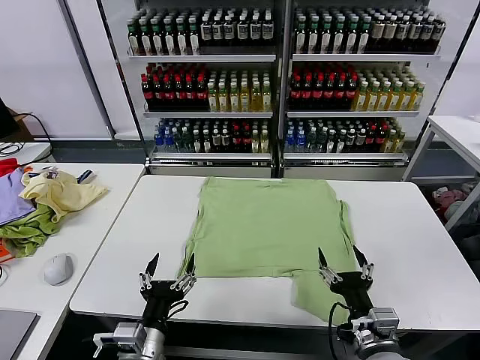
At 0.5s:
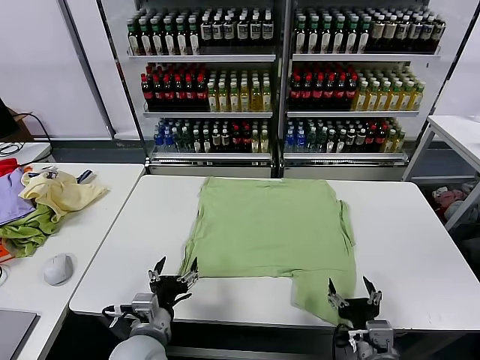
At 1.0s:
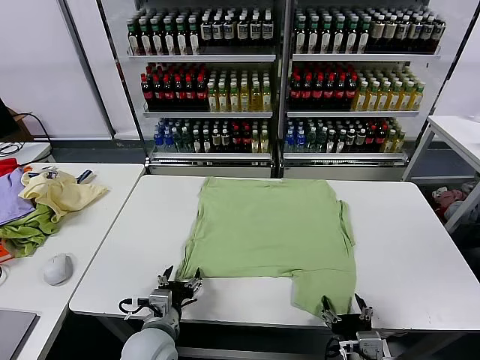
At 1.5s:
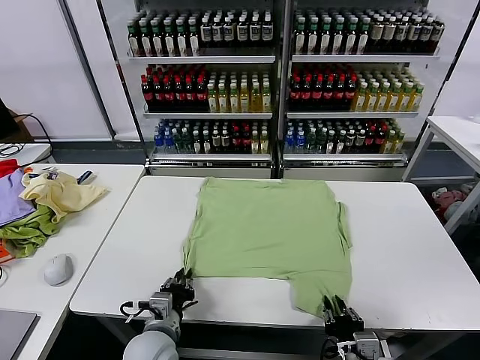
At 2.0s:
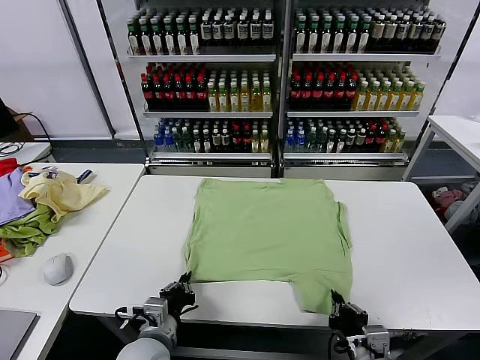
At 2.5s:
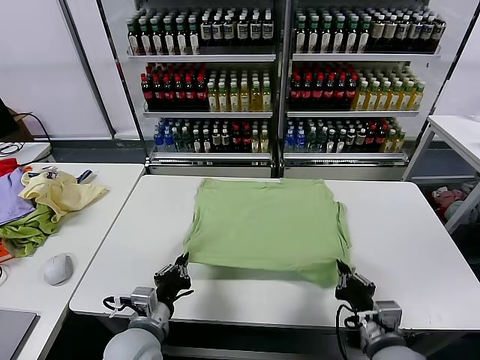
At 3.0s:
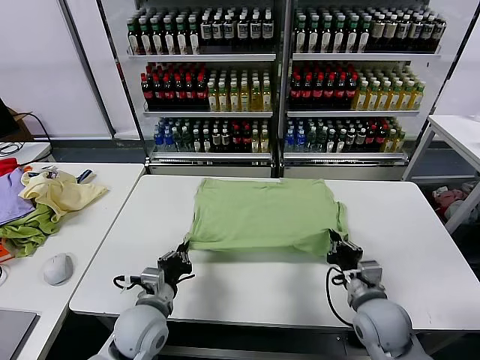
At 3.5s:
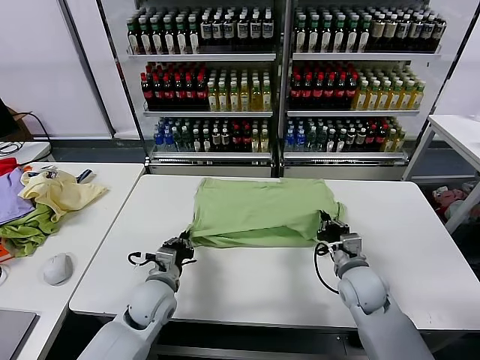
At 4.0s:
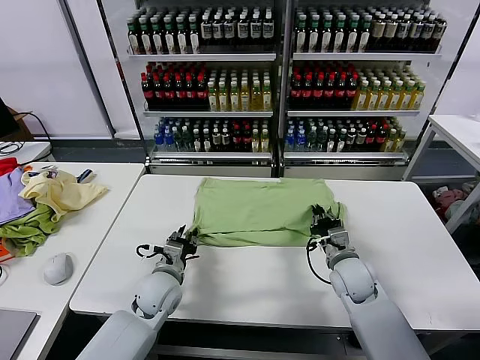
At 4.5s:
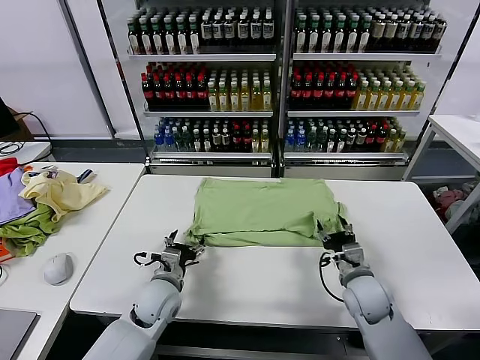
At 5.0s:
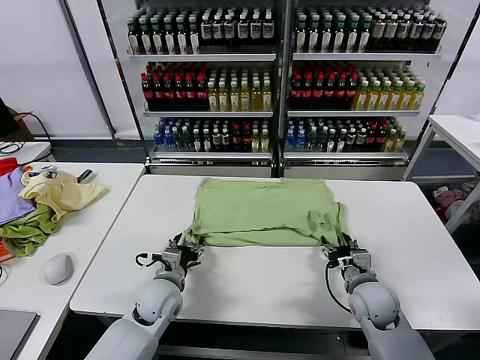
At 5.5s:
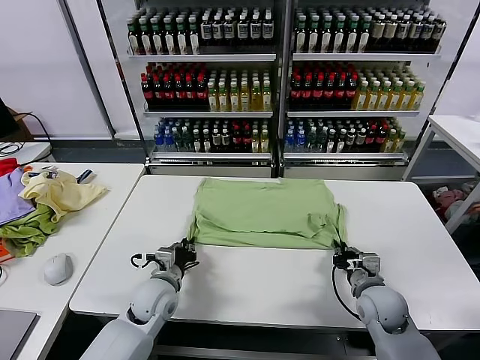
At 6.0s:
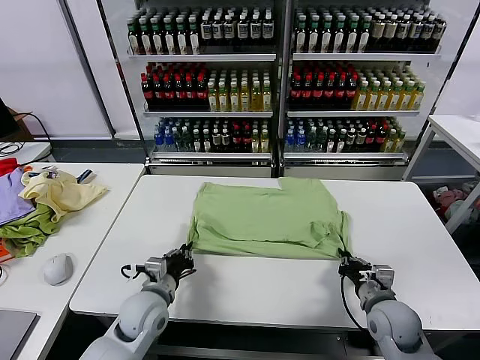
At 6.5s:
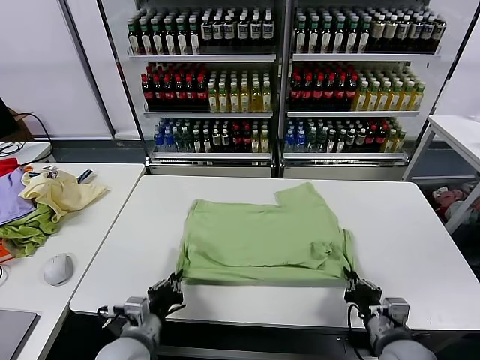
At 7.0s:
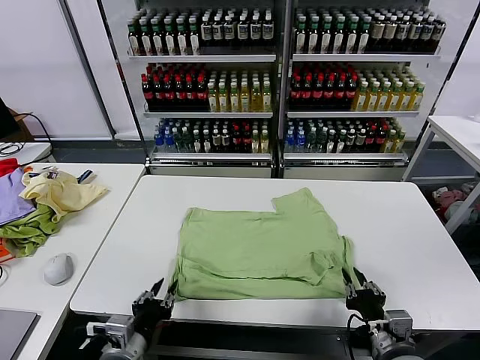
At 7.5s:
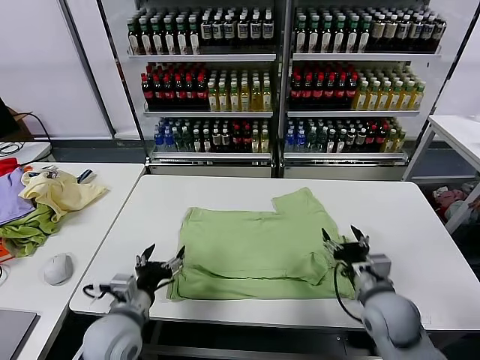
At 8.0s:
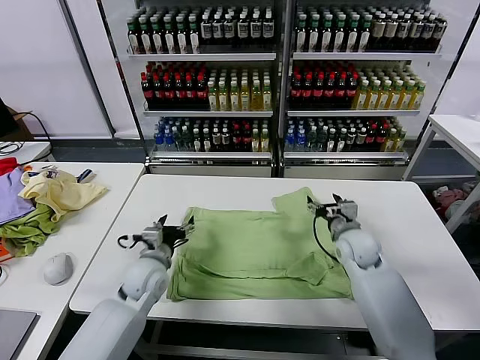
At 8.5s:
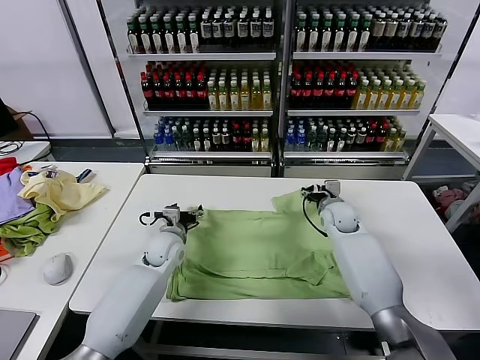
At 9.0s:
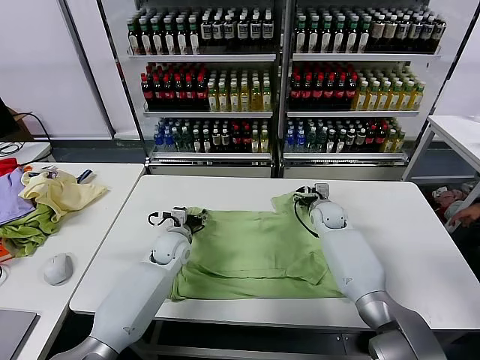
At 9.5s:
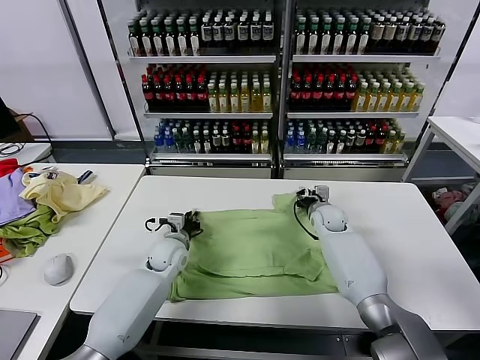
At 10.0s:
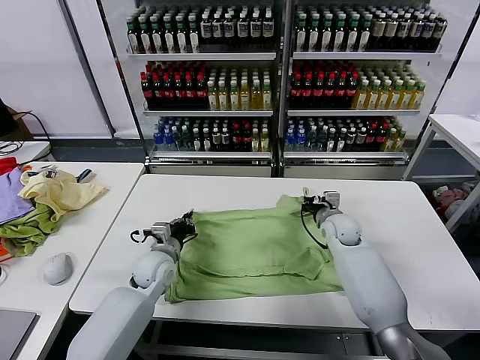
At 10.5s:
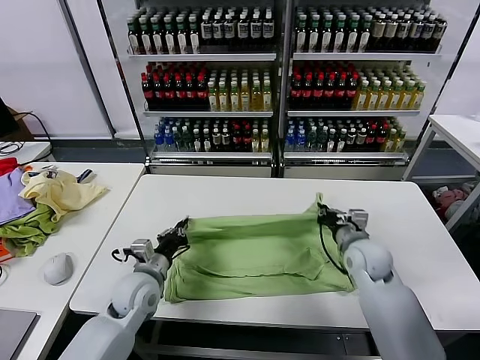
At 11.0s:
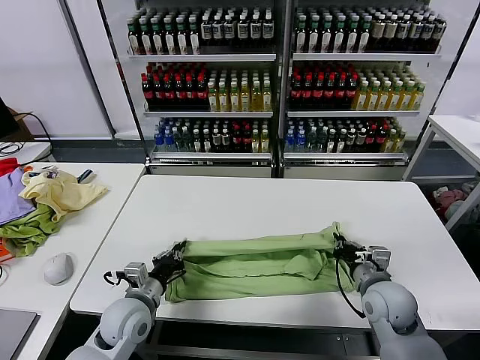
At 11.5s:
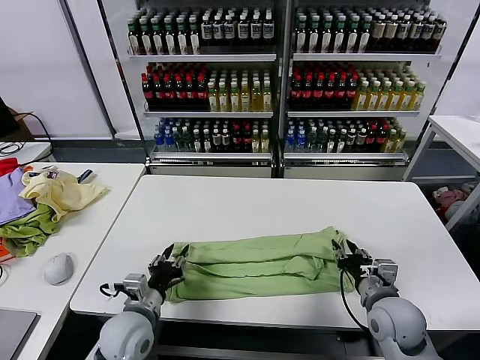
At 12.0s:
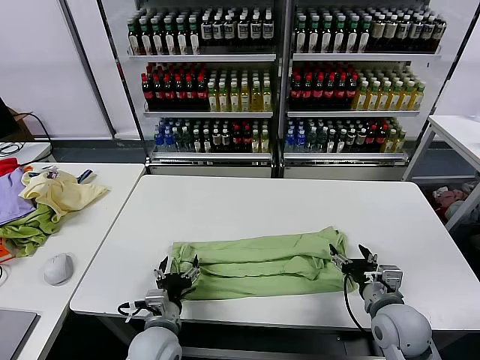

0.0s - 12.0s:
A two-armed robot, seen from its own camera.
Task of the whole recording: fold and organize the clothes.
Step, 0.0s - 1.5s: use both grippers simultaneously to clamp the lower edge of the clothing fabric.
Step, 2.0s - 4.0s: use both grippers to drag the lower edge of the fabric forward and fold it over the upper edge.
Step, 4.5s - 7.0s: Drag the clothes downward with both gripper.
Step, 7.5s - 9.5s: use both grippers simultaneously to clamp the upper edge of the clothing fabric.
Step, 10.0s - 11.0s: use both grippers to drag the upper edge of the fabric backward and fold it over the lower edge.
2.0s - 4.0s: The left gripper shifts about 15 cm forward, and opens up. The right gripper is displaced forward by roughly 20 cm.
4.0s - 6.0s: The left gripper moves roughly 5 cm, and closes. The right gripper heads backward and to the right, covering approximately 10 cm, and opens, then closes once more.
6.0s - 8.0s: The left gripper travels backward and back again, roughly 15 cm each way, and opens up; the right gripper moves forward, roughly 20 cm, and opens up.
8.0s - 10.0s: The left gripper closes up. The right gripper goes forward and returns, approximately 10 cm each way, and closes up.
10.0s - 12.0s: Both grippers travel together backward, roughly 20 cm. The right gripper opens; the left gripper opens up.

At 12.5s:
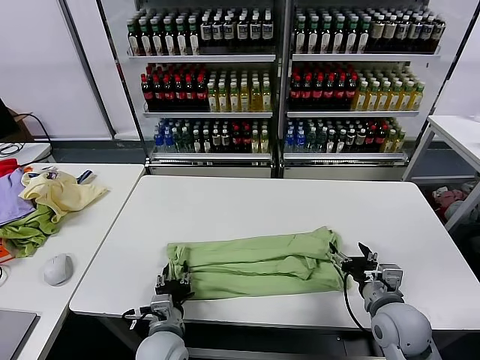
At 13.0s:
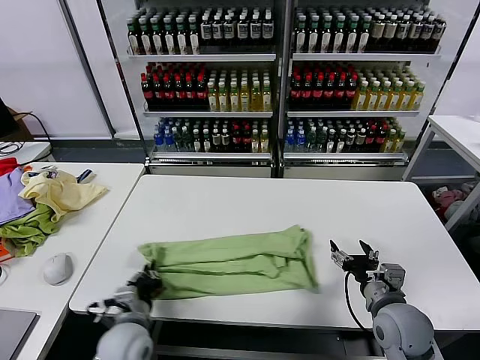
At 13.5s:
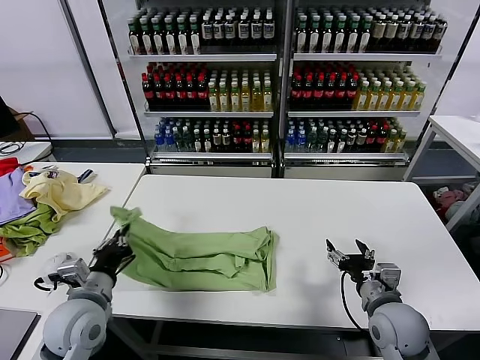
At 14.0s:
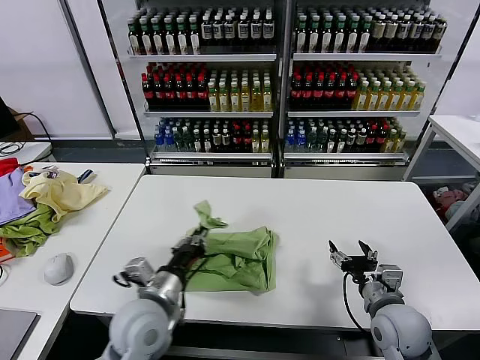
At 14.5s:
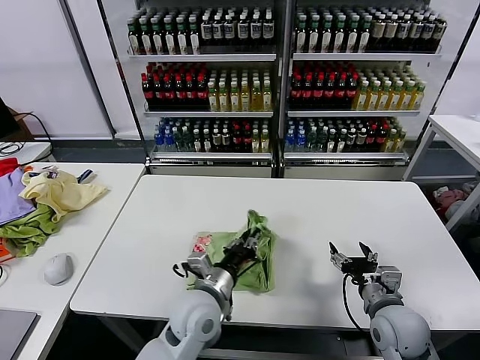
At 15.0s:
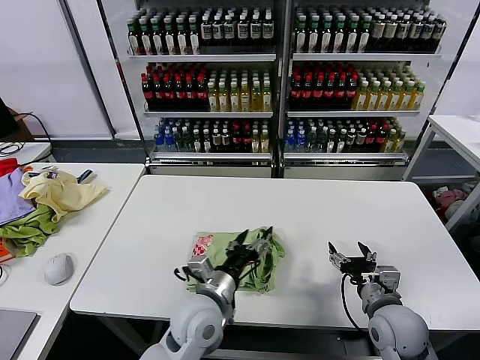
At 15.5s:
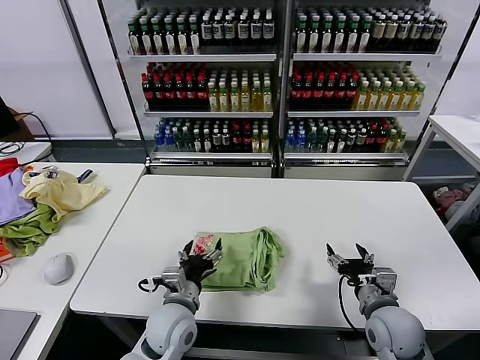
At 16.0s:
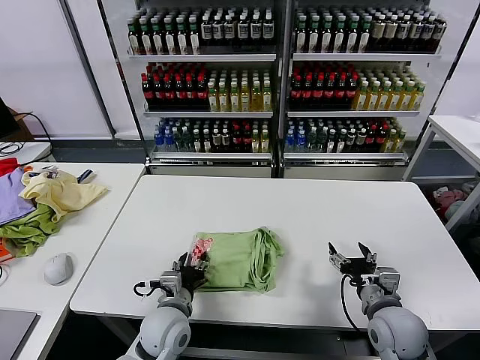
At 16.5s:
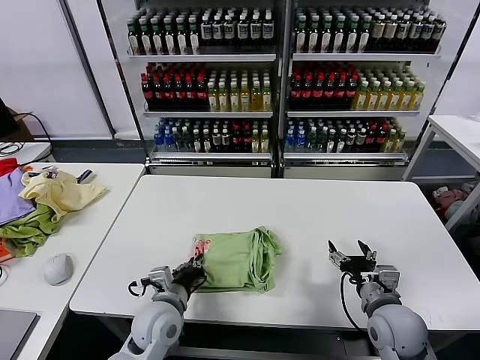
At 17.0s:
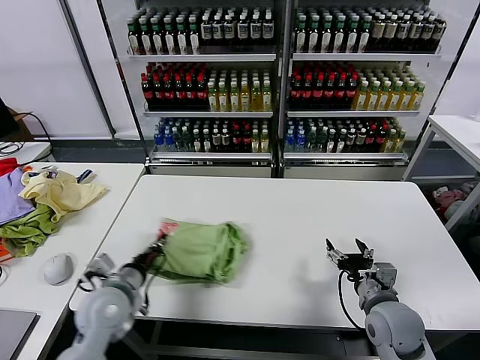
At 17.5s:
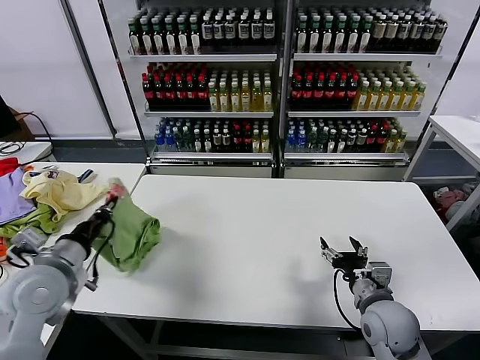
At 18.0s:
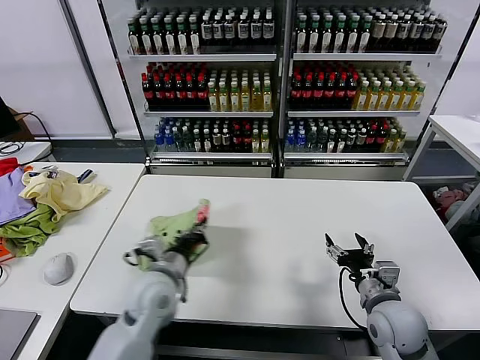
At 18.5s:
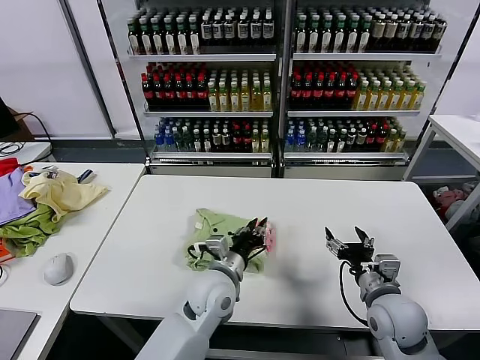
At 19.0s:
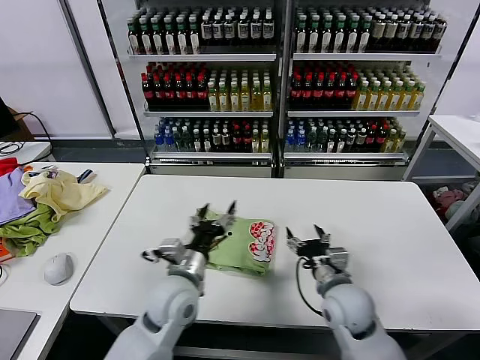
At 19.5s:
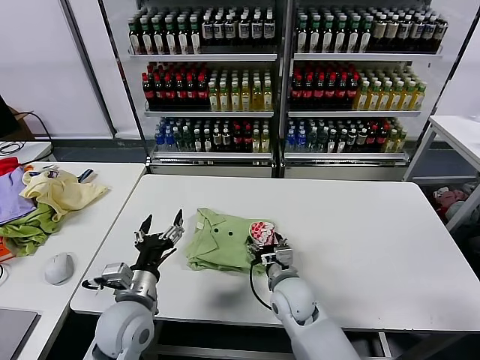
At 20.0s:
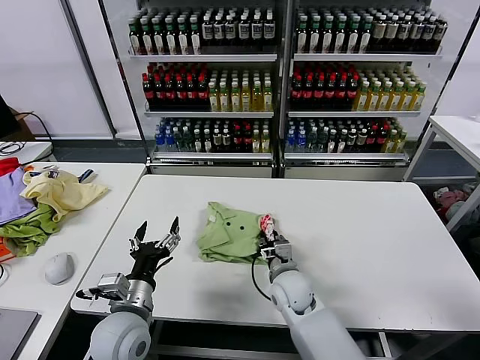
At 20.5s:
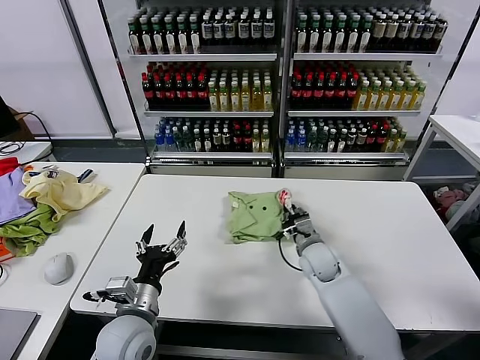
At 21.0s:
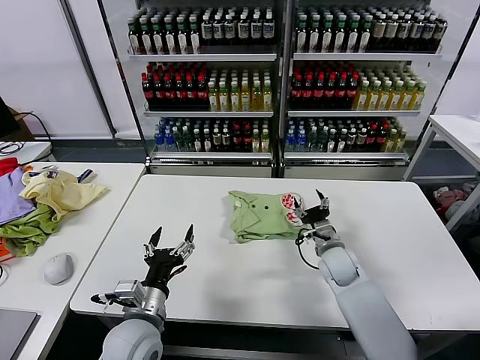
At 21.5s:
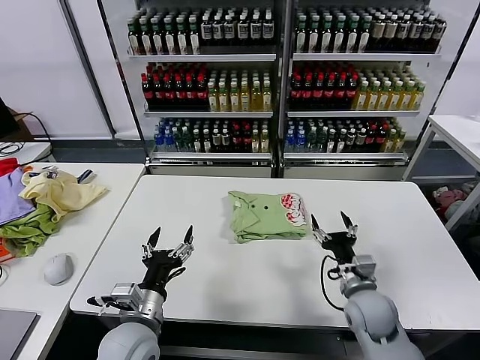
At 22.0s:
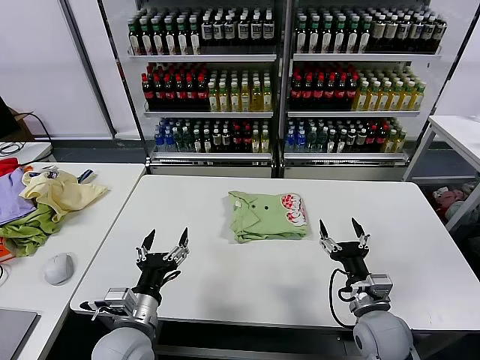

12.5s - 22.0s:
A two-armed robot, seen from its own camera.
Task of the whole recording: fold and organize the clothes.
Step, 13.0s - 14.5s: use the left gripper to drag the left edge of the fabric to the left and folds it over the right edge.
Step, 15.0s - 18.5s: Flip the folded clothes over with left gripper.
Step, 19.0s - 20.5s: Drag the clothes to the center of the table.
12.5s - 14.5s: The left gripper goes approximately 10 cm upward, and reaches roughly 15 cm to the left, then returns.
14.5s - 16.5s: The left gripper is displaced to the left and downward by approximately 10 cm, and opens and closes again.
16.5s - 18.0s: The left gripper is displaced upward by some 5 cm, and travels to the left and back again, roughly 20 cm each way.
18.0s - 20.0s: The right gripper moves to the left and forward, about 20 cm, and closes up. The left gripper is displaced backward by some 5 cm, travels to the right and back again, approximately 15 cm each way, and opens.
20.0s - 22.0s: The right gripper moves to the right and backward, about 20 cm, and opens its fingers.

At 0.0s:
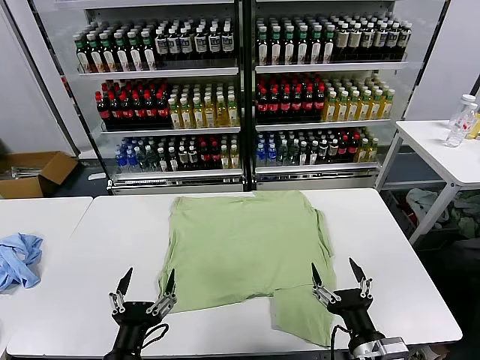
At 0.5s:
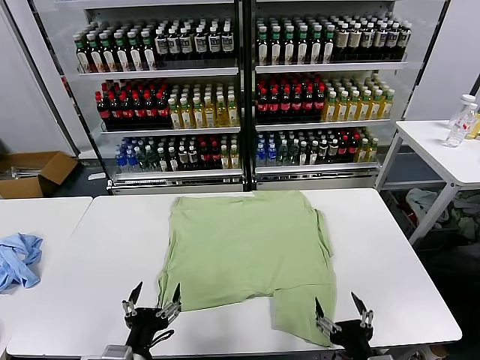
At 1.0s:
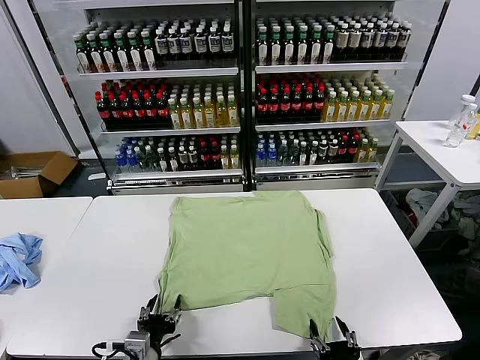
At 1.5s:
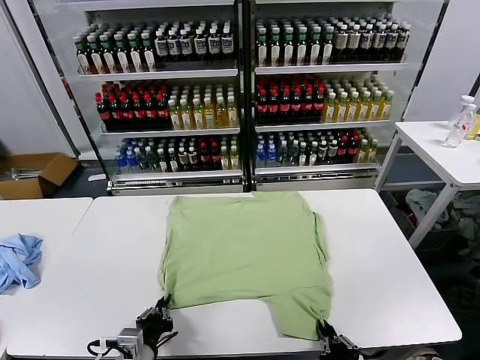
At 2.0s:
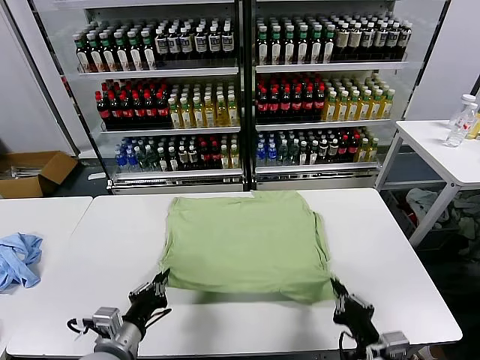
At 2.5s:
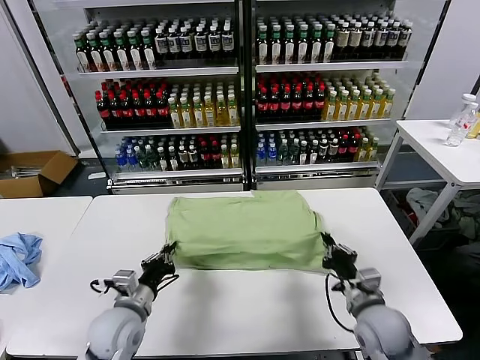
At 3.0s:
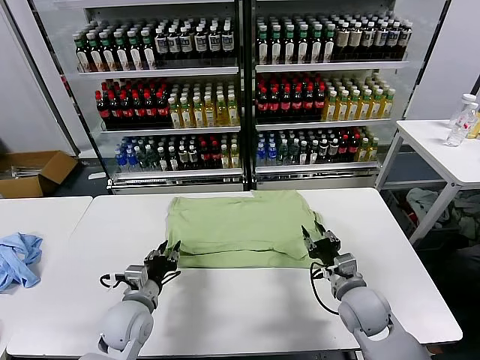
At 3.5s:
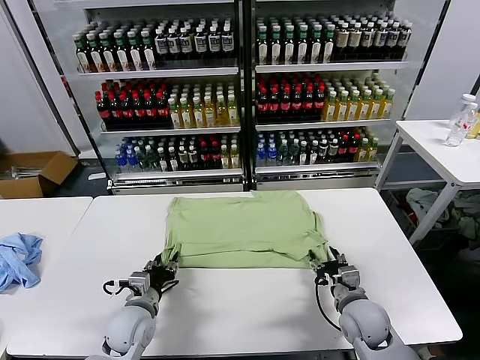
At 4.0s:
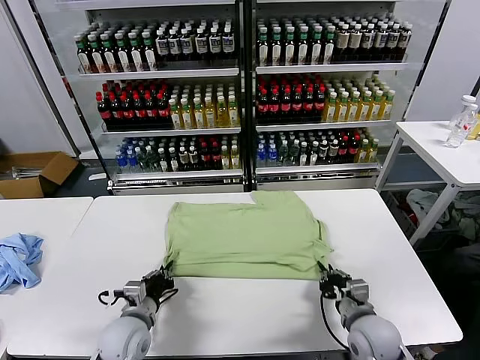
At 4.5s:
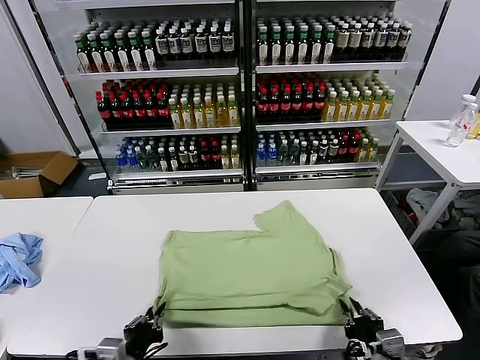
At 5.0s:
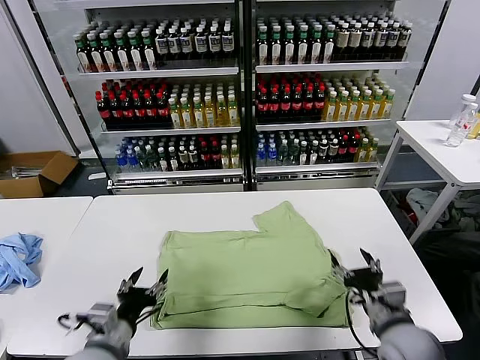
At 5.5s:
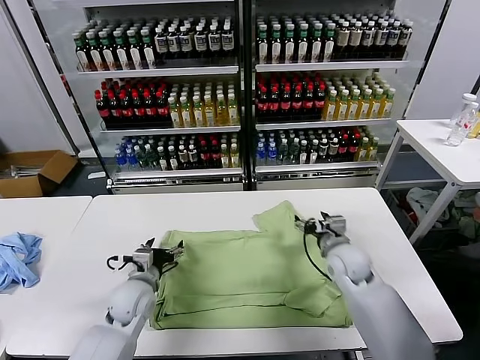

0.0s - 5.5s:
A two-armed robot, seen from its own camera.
Task of the whole recording: fold and organize the clothes.
Step, 0.0s - 1.5s: use both grippers simultaneously to clamp the lower edge of the clothing fabric.
Step, 2.0s - 2.5s: use both grippers to drag the lower edge of the fabric forward and fold it over the upper edge.
Step, 3.0s - 4.5s: Drag the clothes downward with both gripper.
2.0s - 3.5s: The left gripper heads forward and downward, covering approximately 15 cm, and opens up. Meanwhile the right gripper heads forward, covering about 15 cm, and opens up.
3.5s - 5.5s: The right gripper shifts about 15 cm forward and upward, and opens, while the left gripper travels backward and back again, roughly 15 cm each way, and opens up.
